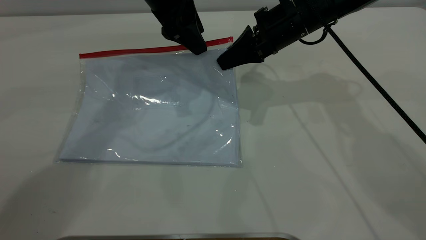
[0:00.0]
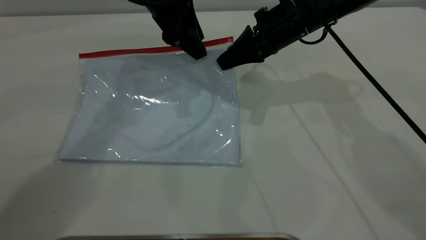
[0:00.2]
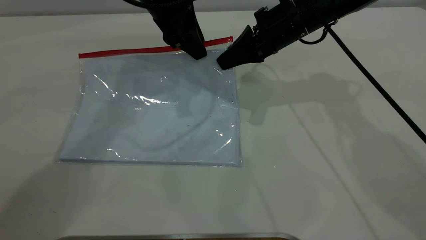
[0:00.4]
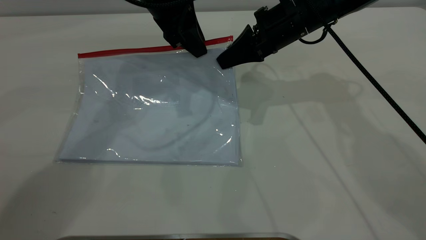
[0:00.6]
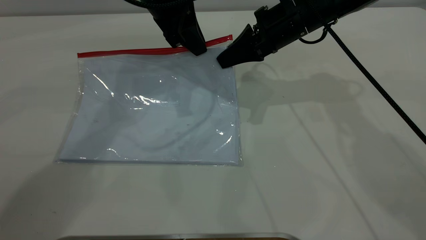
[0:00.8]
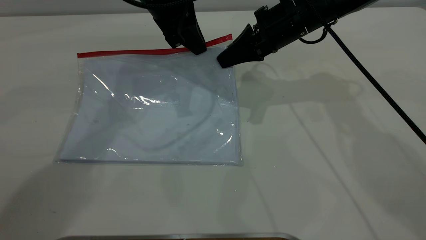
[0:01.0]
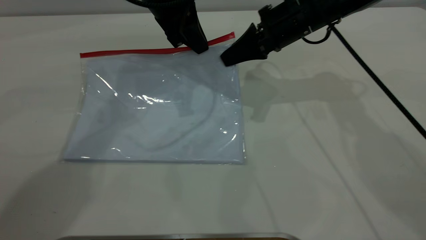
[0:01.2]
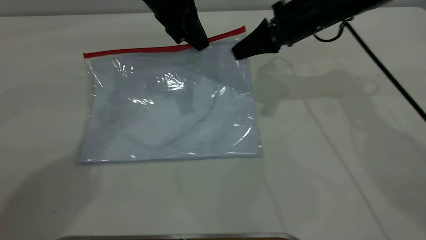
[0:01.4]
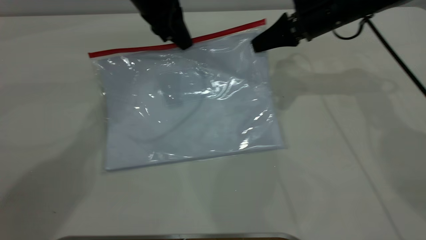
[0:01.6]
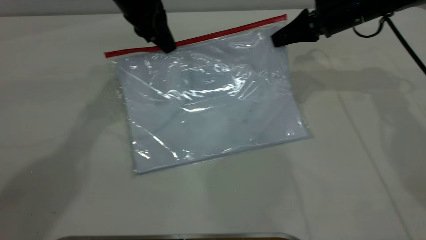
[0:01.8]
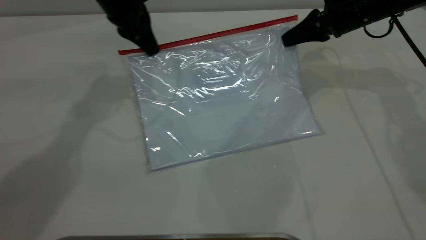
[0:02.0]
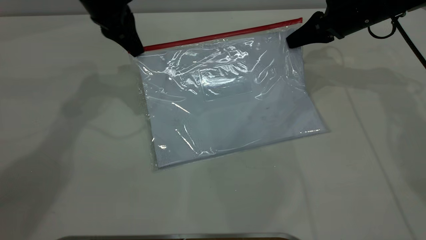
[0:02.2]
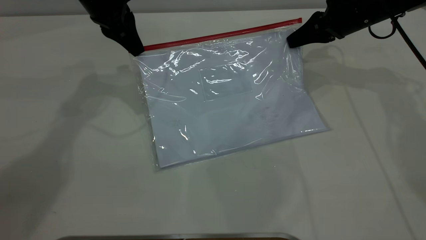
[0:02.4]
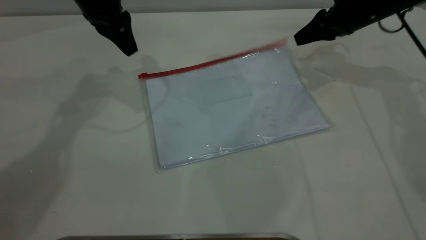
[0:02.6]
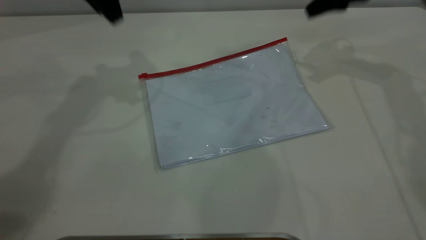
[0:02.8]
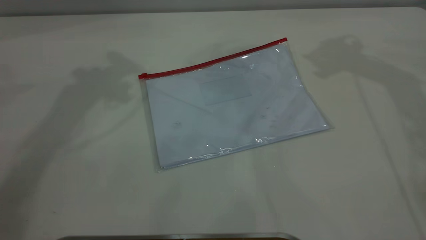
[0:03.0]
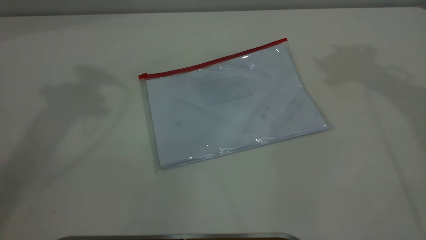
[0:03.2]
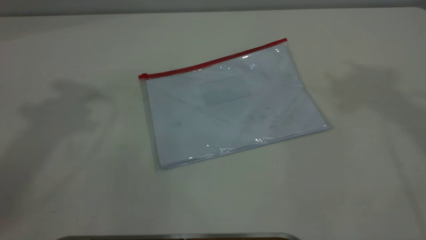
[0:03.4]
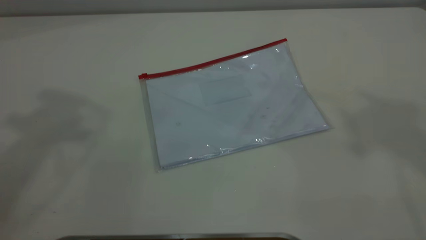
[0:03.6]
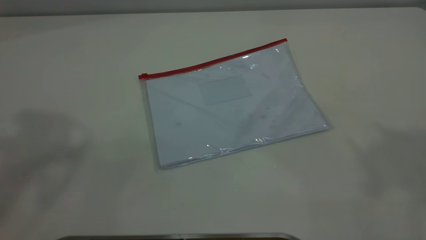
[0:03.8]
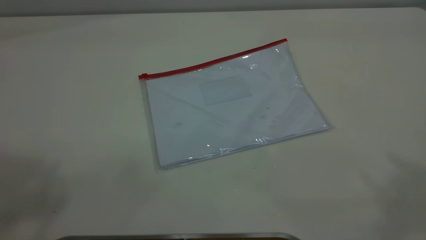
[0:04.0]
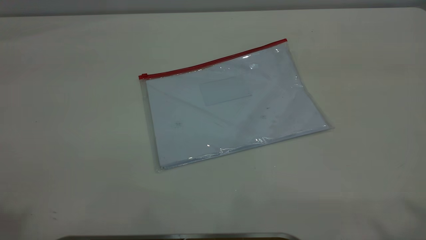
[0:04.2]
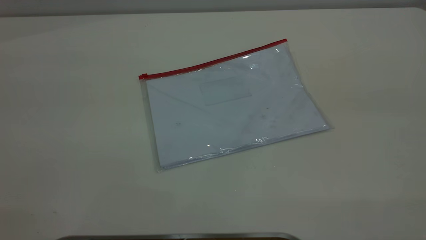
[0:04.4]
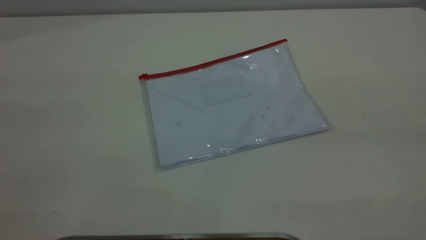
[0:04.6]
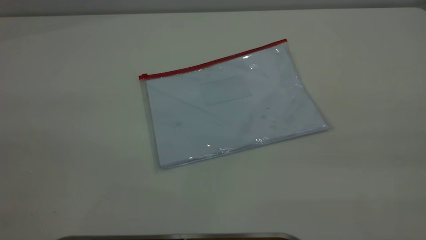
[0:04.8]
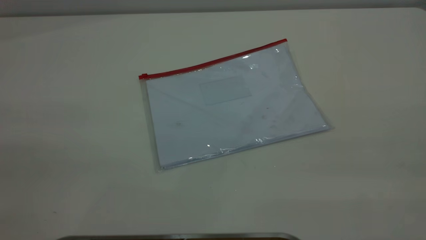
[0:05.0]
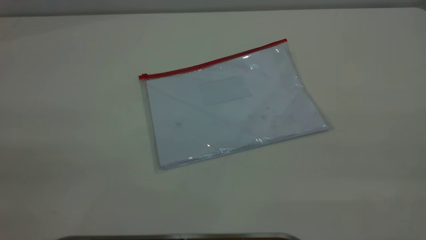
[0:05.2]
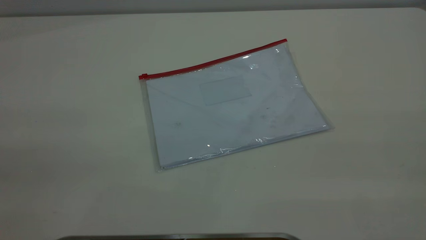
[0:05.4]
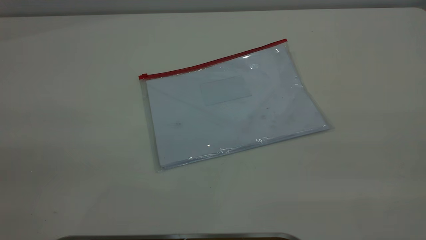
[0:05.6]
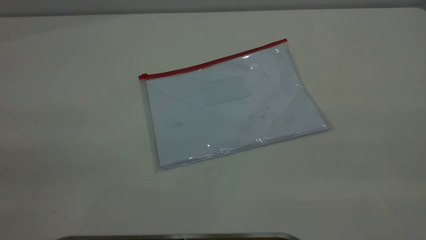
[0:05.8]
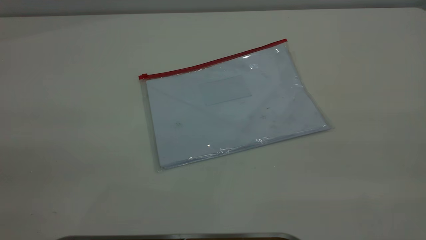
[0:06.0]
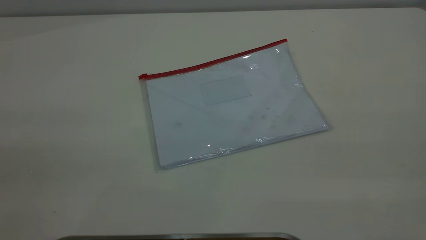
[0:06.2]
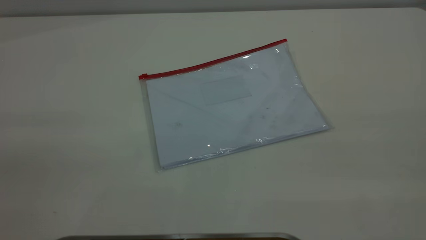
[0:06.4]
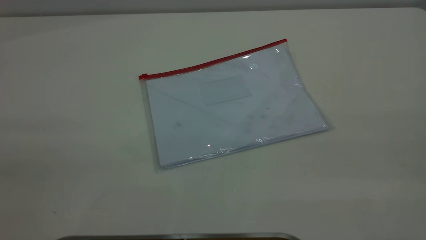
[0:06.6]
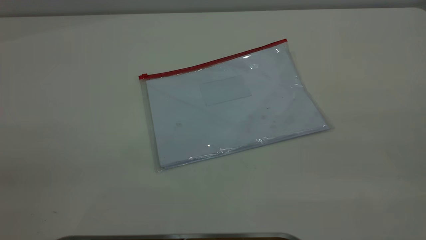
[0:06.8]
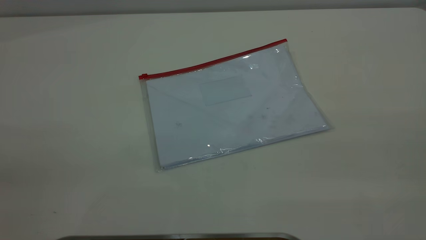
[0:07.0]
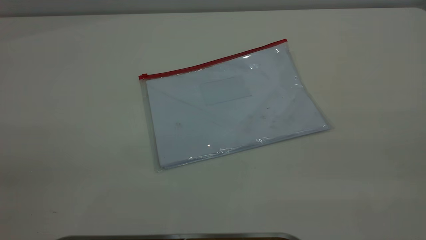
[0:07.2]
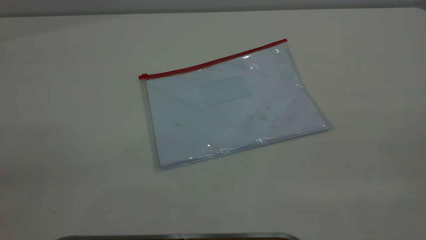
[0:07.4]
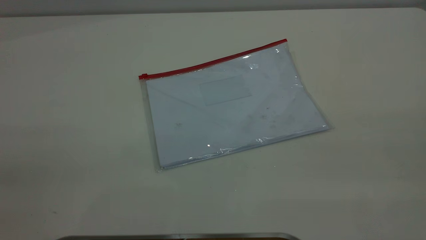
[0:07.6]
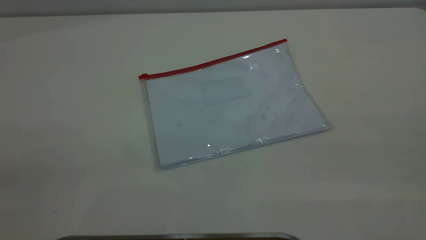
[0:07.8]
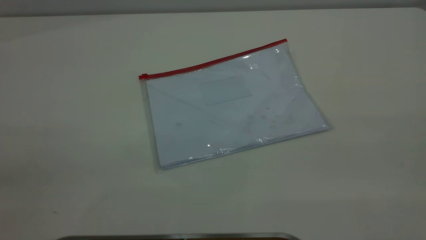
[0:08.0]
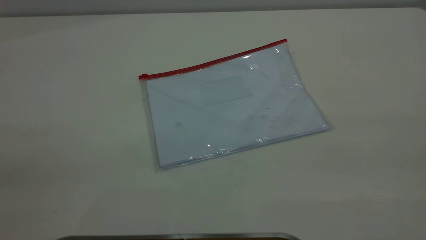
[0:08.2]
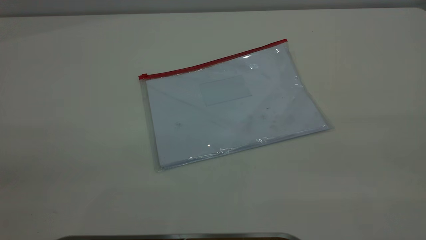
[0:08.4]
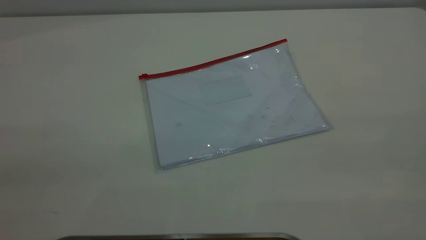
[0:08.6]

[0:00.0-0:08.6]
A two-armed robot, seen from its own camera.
Step, 0:00.0 to 0:02.4: Pulling up the zipper on the transparent plastic bag with the left gripper to close it.
Step, 0:02.6 to 0:03.2: Place the transparent plastic bag.
0:00.0 to 0:01.4: The left gripper closes its fingers.
0:01.4 to 0:02.8: The right gripper shifts roughly 15 cm to the right and upward, and opens up; the left gripper moves to the left and upward, roughly 15 cm, and opens.
0:02.8 to 0:04.4: The two grippers go roughly 50 cm backward and upward.
